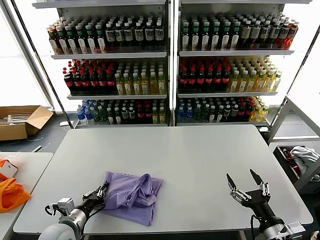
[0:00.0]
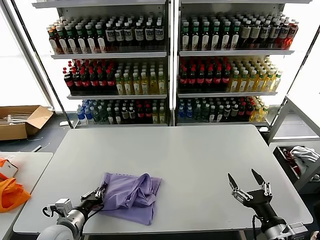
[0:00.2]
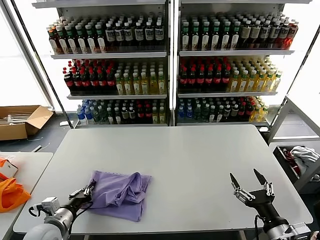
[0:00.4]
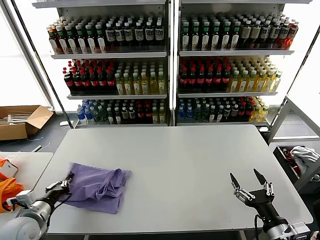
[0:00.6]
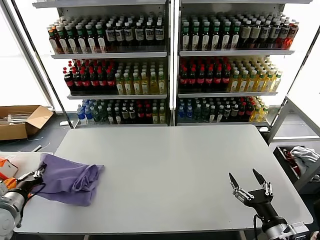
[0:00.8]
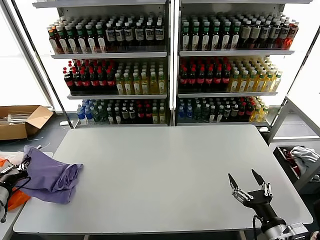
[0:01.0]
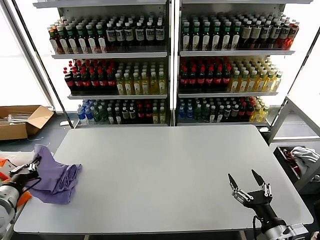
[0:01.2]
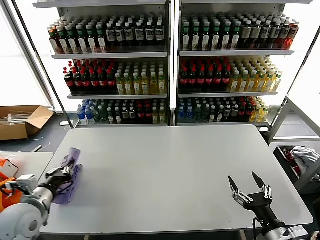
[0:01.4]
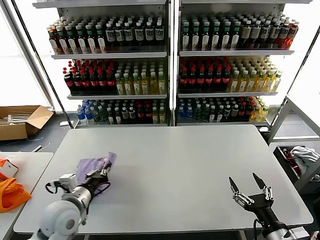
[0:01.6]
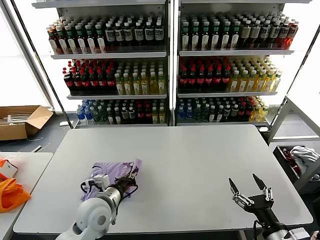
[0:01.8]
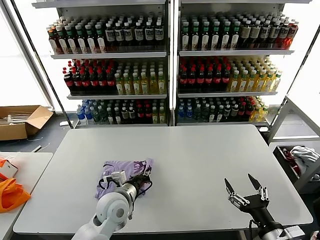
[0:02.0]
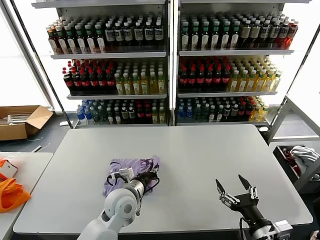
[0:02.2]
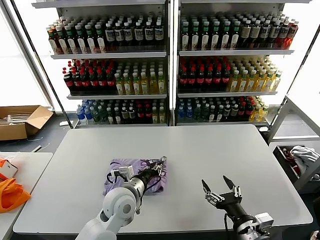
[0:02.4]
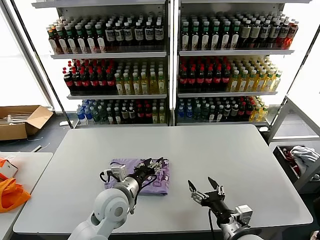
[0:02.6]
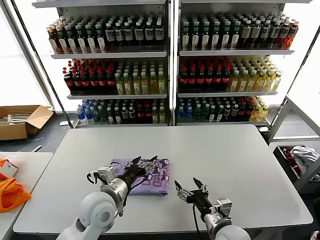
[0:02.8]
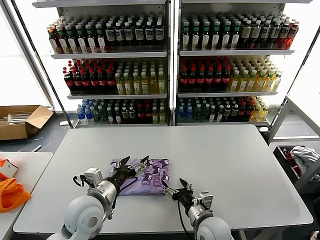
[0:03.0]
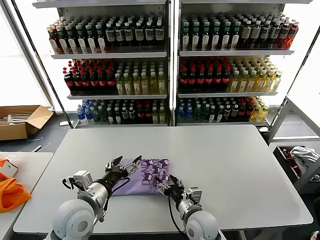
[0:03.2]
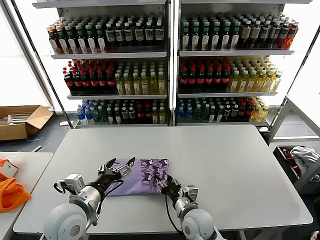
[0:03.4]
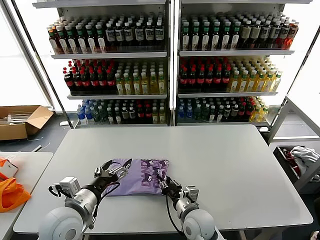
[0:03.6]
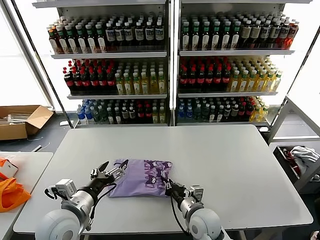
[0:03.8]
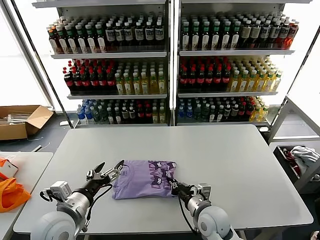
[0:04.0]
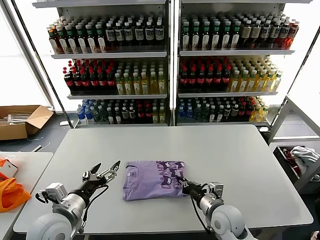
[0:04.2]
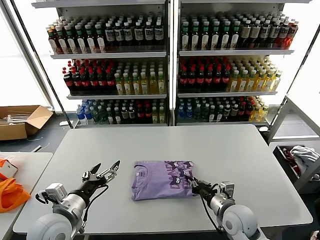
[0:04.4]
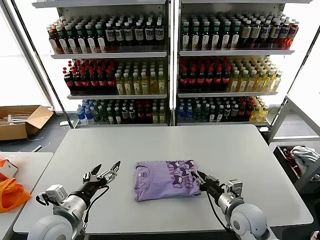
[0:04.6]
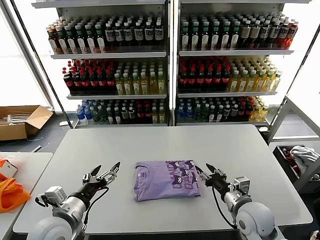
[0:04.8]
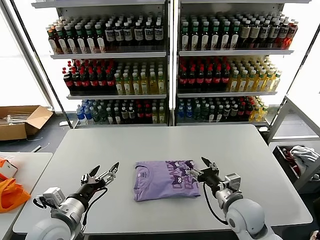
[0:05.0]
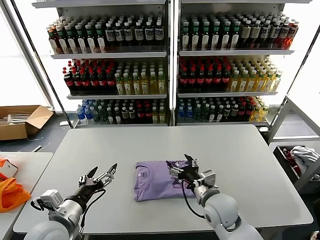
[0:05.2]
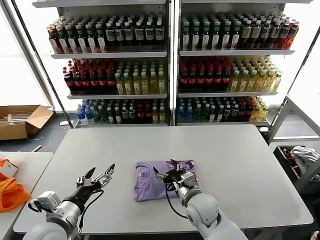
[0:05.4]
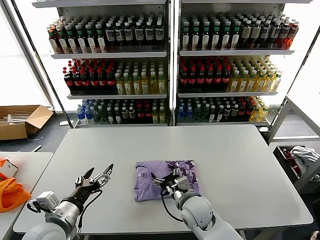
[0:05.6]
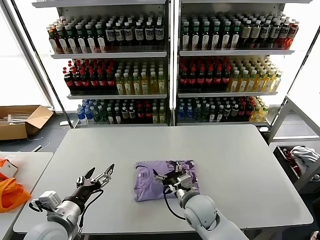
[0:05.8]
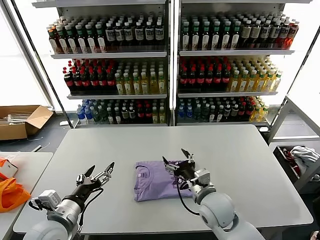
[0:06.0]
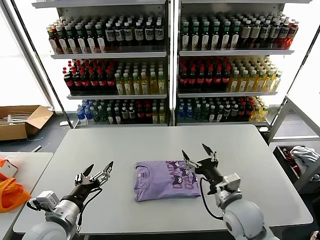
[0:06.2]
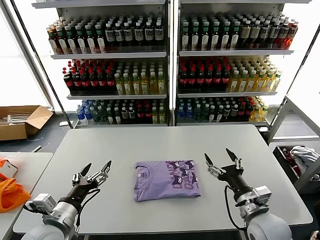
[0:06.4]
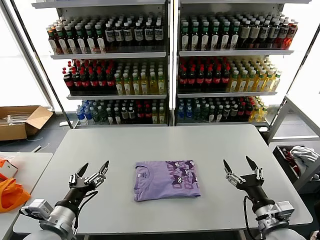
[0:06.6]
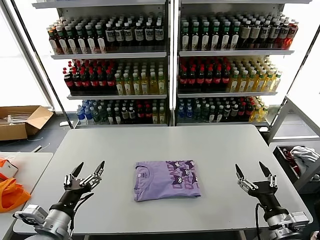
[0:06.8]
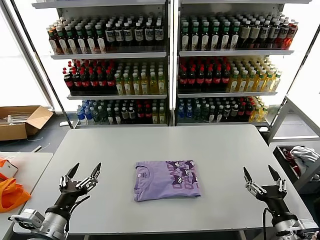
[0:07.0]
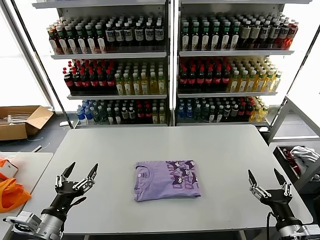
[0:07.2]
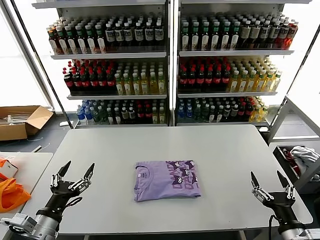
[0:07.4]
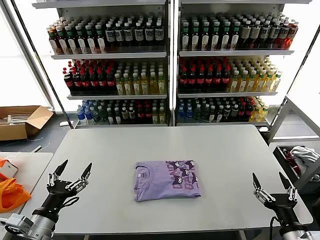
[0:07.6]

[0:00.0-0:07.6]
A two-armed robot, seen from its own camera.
Task of the whole recording: fold and organize the clothes.
Step, 0:00.0 to 0:02.4: Flip the folded clothes over with left gripper.
Step, 0:02.6 to 0:05.8: Drag the clothes to the center of the table.
0:00.0 to 0:01.6: The left gripper moves upward, about 10 cm, and goes to the left and returns, some 15 cm each way.
0:01.6 to 0:03.0: The left gripper goes roughly 10 cm to the right, and opens its fingers; the right gripper is displaced to the left and forward by approximately 20 cm.
0:03.0 to 0:04.6: The left gripper moves to the left and backward, roughly 10 cm. Meanwhile the right gripper heads to the right, covering approximately 10 cm, and closes up.
0:04.6 to 0:06.0: The right gripper moves to the left, about 10 cm, and opens.
0:06.0 to 0:07.6: The left gripper shifts roughly 5 cm to the left. Meanwhile the right gripper heads to the right and backward, covering some 25 cm.
